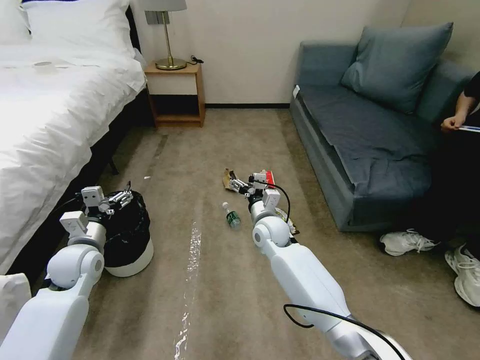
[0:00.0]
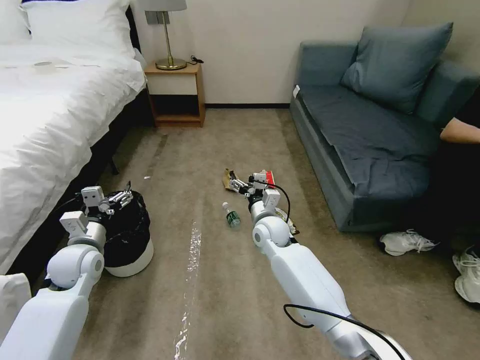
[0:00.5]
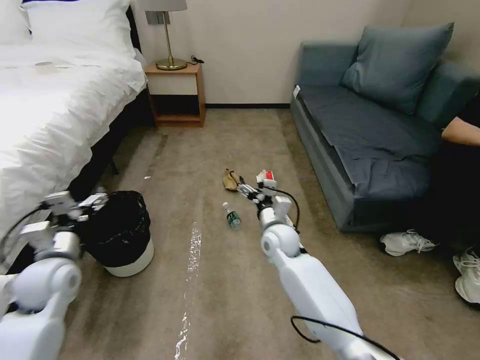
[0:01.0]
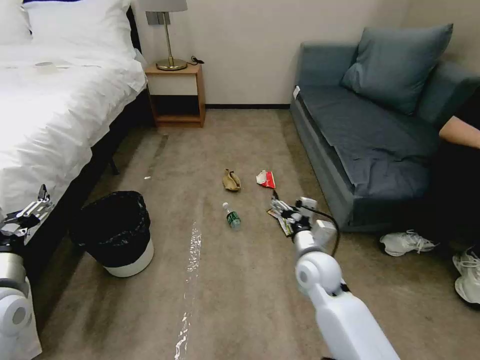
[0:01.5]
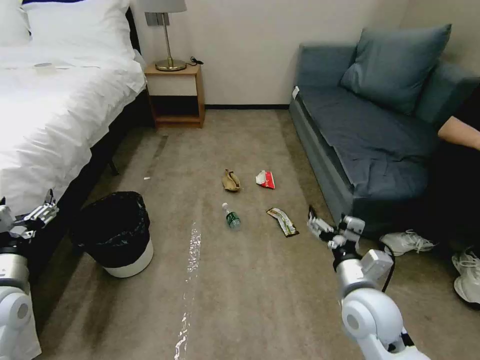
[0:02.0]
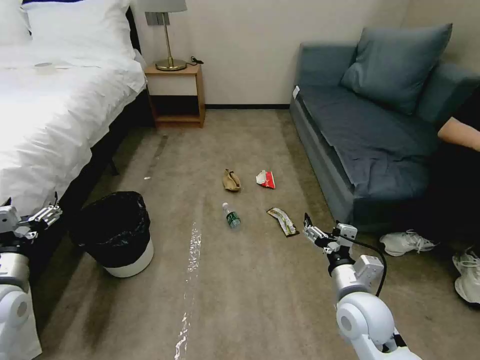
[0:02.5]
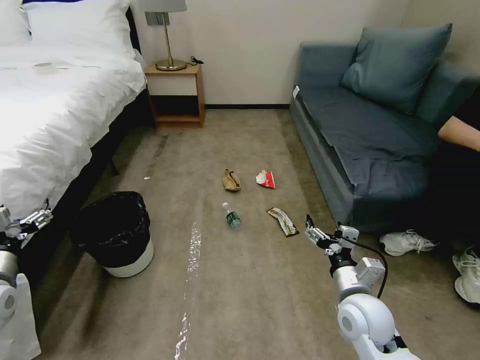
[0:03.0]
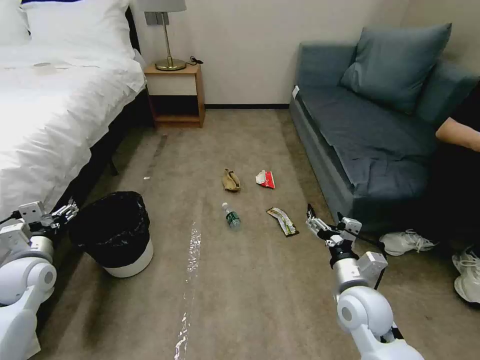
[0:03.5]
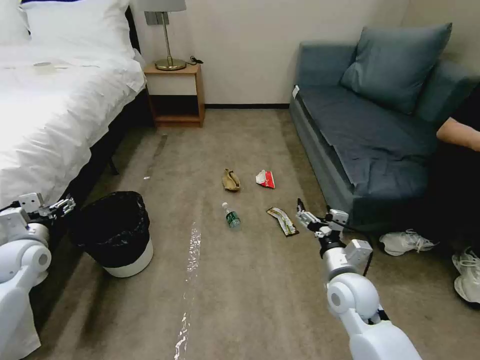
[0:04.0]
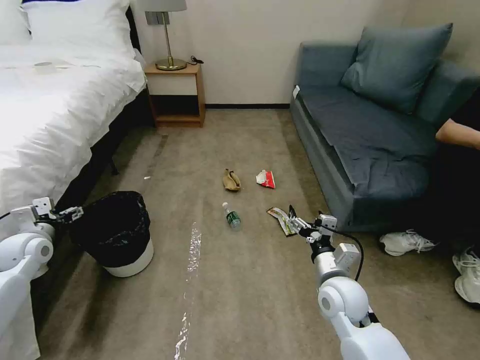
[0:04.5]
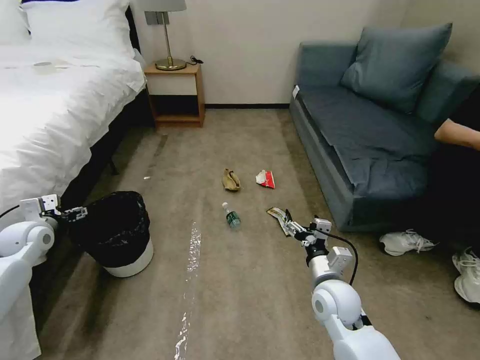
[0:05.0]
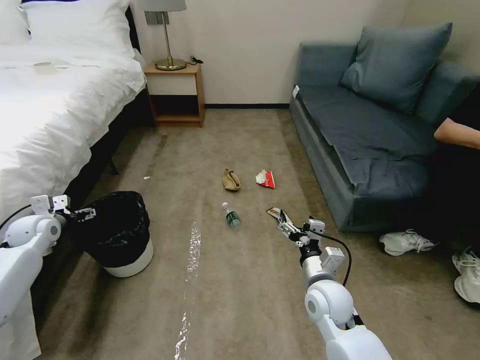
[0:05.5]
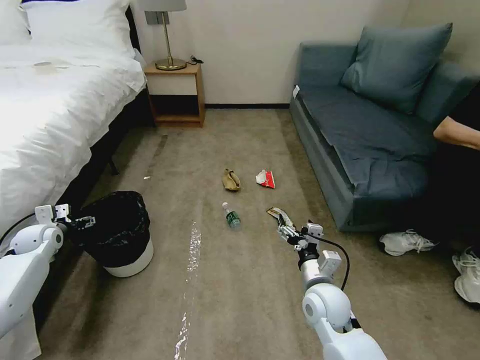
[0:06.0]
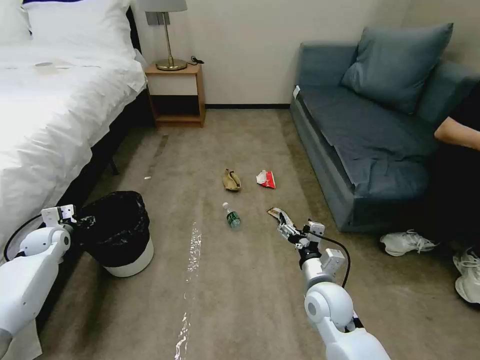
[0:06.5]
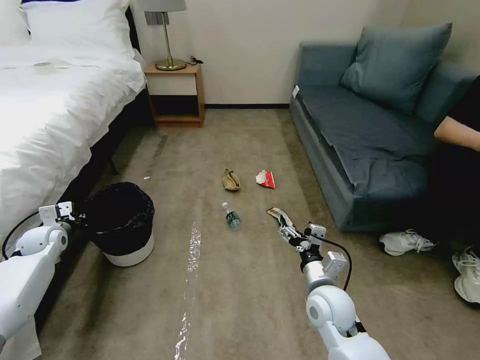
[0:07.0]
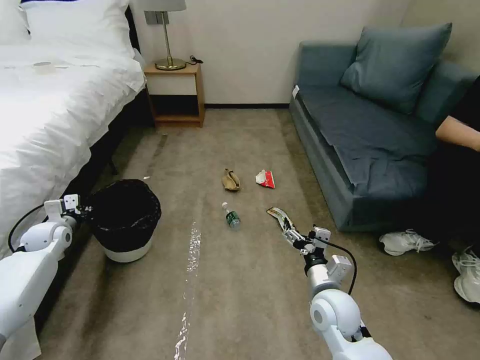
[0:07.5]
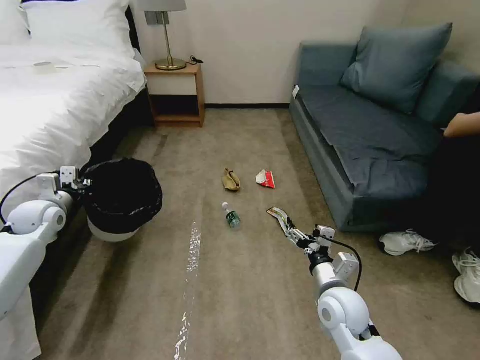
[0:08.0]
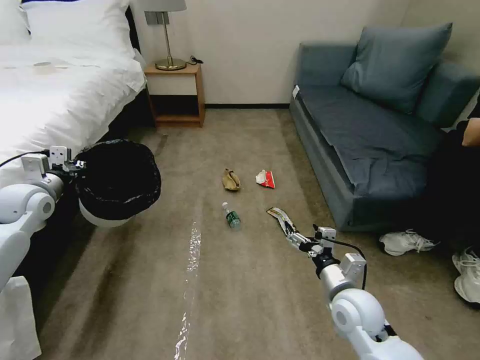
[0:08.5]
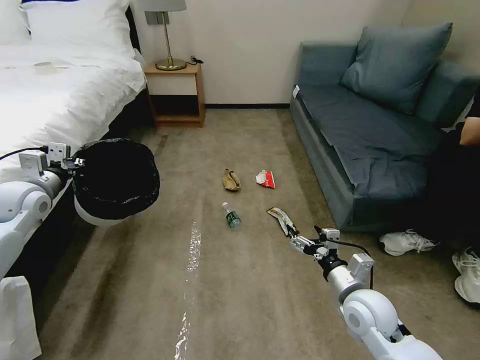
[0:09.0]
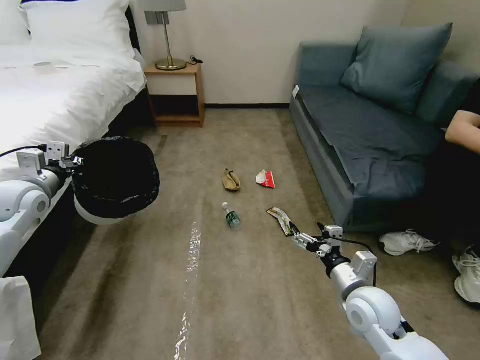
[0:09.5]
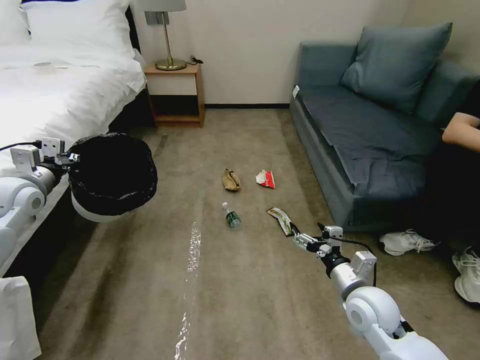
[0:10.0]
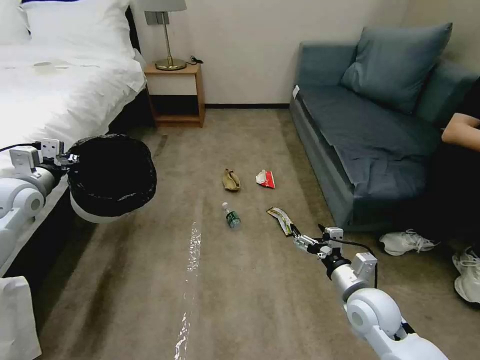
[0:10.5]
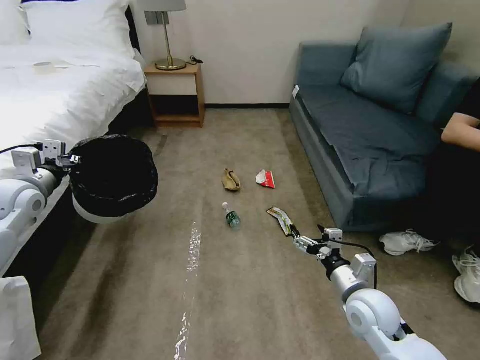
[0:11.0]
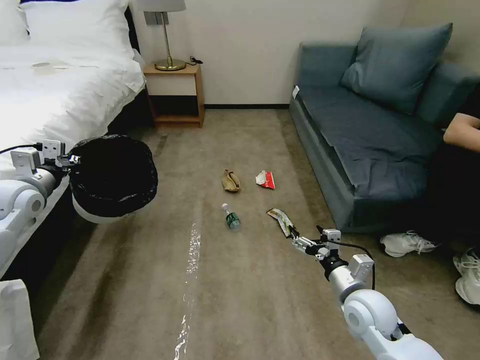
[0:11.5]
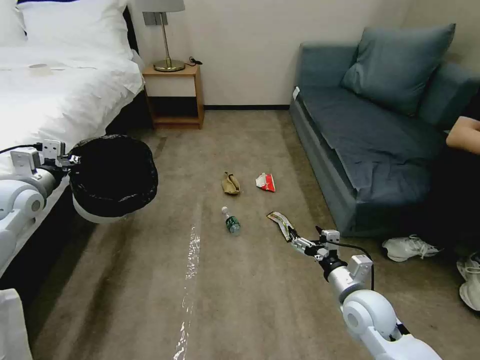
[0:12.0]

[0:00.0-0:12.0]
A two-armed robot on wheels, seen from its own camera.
Task of the whole recording: Pick up the trash bin, then pick up the garbage on the floor and place it into the trash bin.
0:02.0 to 0:04.0: The right gripper ends up roughly 5 cm from where it was. The left gripper is displaced forward and to the left by approximately 15 cm.
0:04.0 to 0:06.0: The right gripper ends up roughly 5 cm from where it was, while the left gripper heads forward, downward and to the left, covering about 10 cm.
0:06.0 to 0:08.0: The left gripper goes about 10 cm upward, and closes its fingers.
0:08.0 to 0:10.0: The left gripper travels upward by roughly 10 cm. The right gripper is displaced to the right by some 5 cm.
0:10.0 to 0:12.0: Neither gripper changes place.

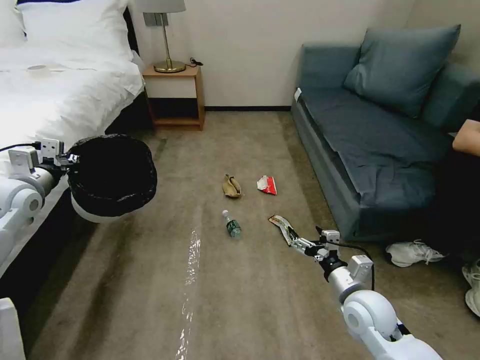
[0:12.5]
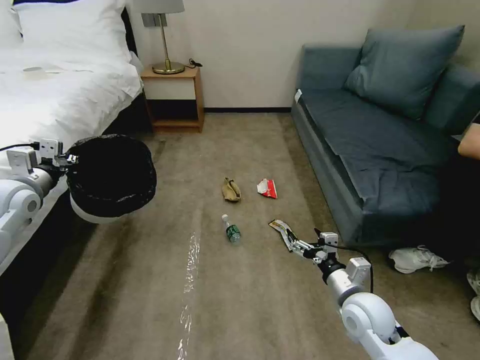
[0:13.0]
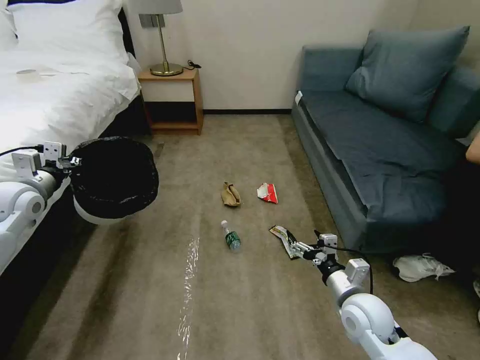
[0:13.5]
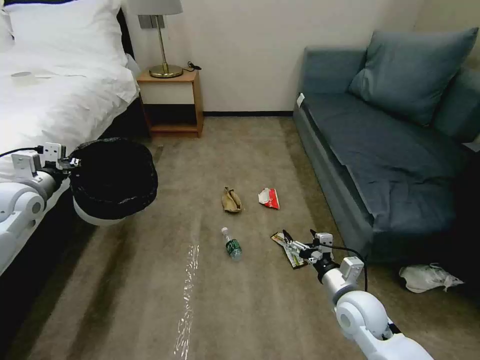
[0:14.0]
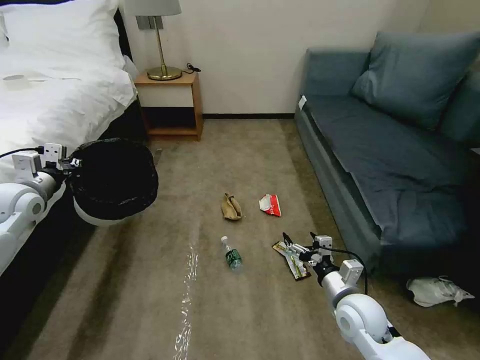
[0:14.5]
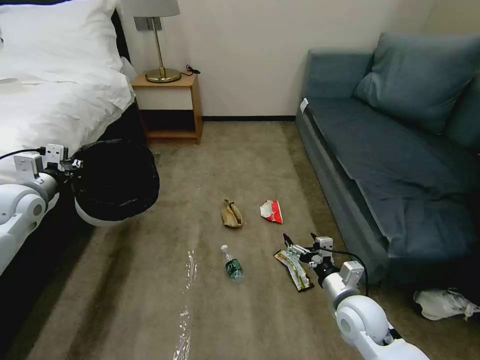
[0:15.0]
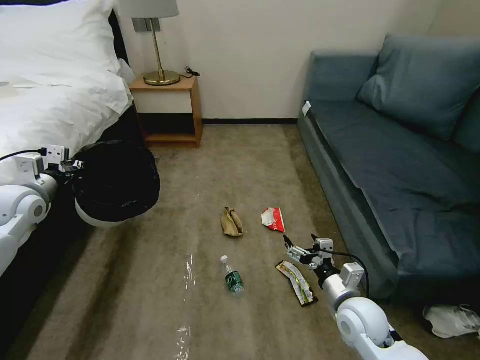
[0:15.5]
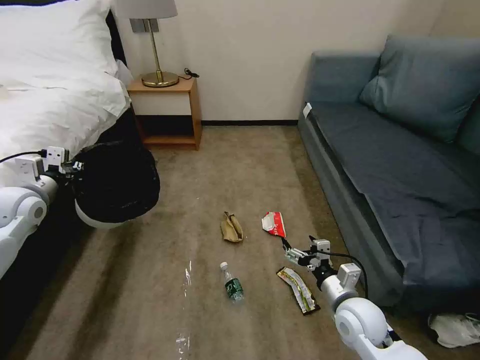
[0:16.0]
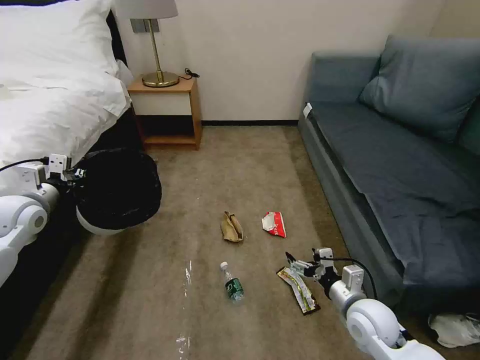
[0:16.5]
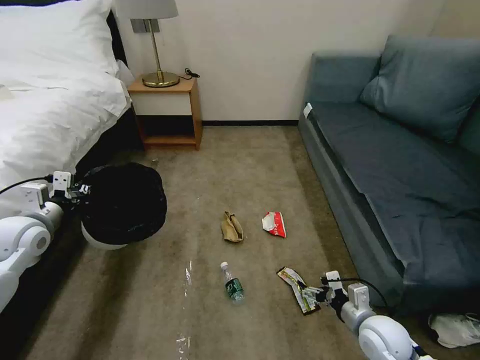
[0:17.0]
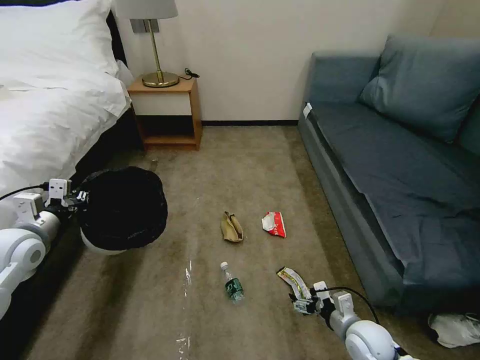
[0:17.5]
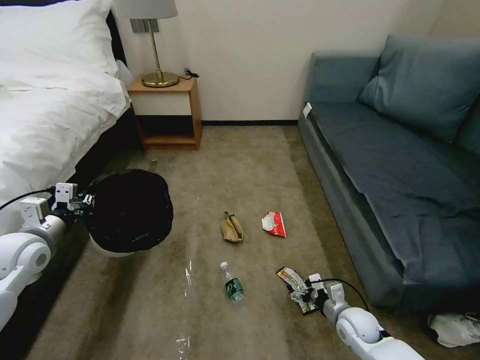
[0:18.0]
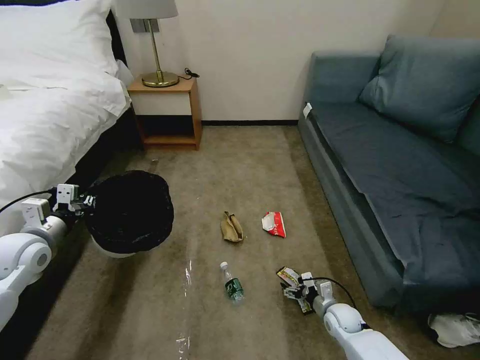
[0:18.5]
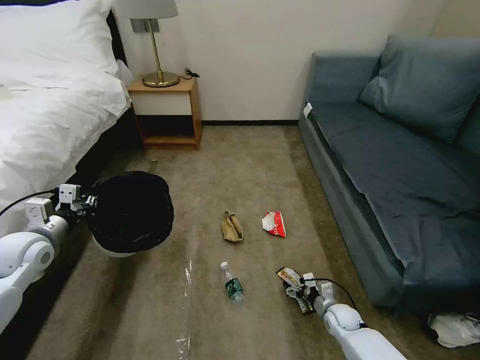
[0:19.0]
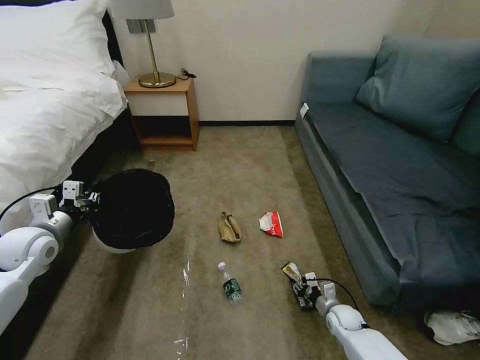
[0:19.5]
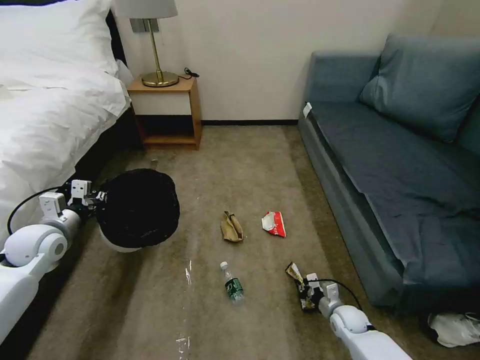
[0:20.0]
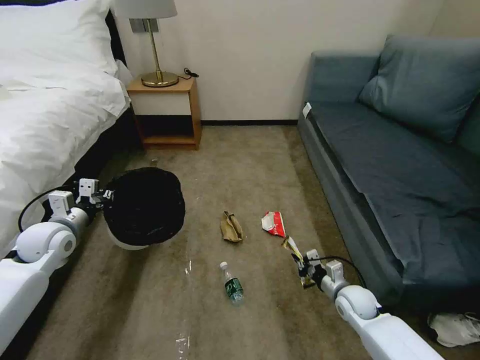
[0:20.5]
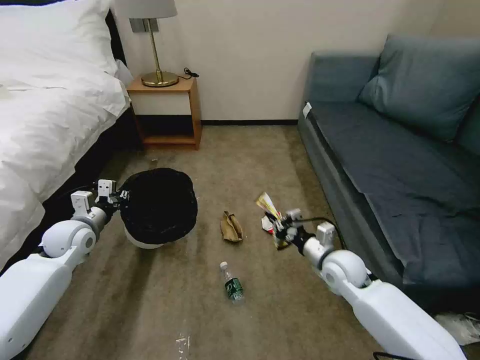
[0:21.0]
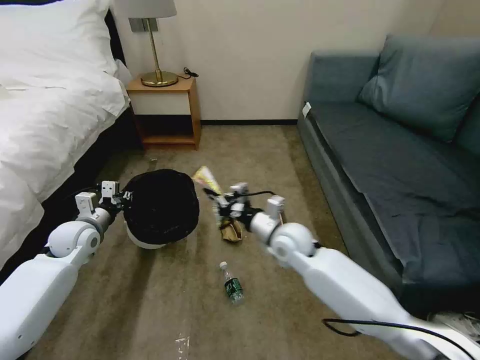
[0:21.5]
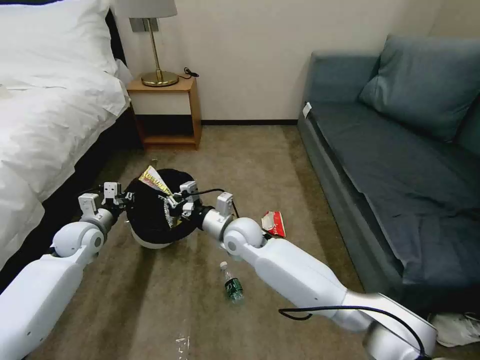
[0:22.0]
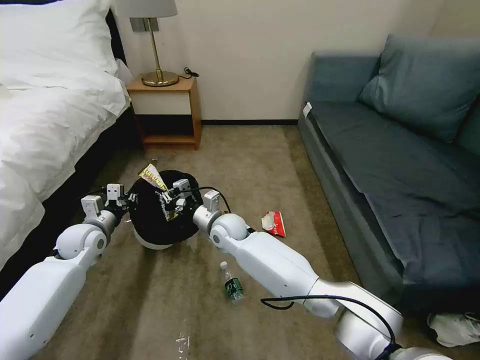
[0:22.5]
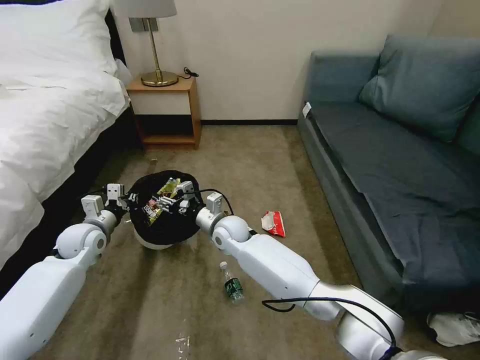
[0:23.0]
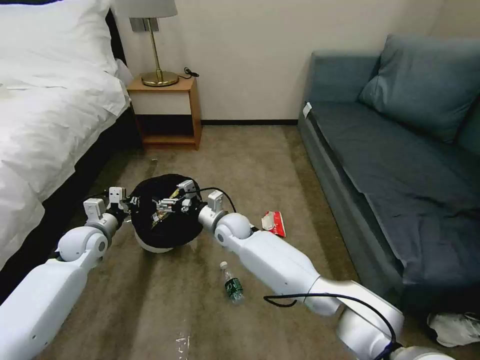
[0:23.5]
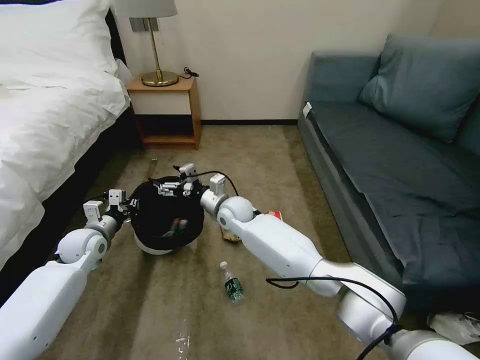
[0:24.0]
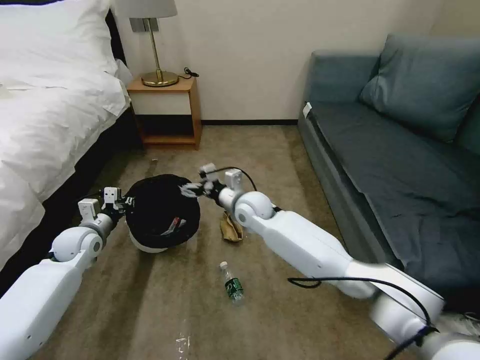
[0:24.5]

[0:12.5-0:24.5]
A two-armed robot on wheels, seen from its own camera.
Task of the whole recording: Pick up the trash bin, then pick up the garbage on the floor and place it into the trash bin.
0:16.5 to 0:18.5: The right gripper moves downward, approximately 20 cm, while the left gripper goes about 5 cm backward.
0:18.5 to 0:20.5: The left gripper ends up some 5 cm from where it was, while the right gripper goes some 10 cm upward, and closes.
0:20.5 to 0:22.5: The right gripper travels to the left and forward by some 35 cm, while the left gripper changes place by about 5 cm.
0:22.5 to 0:24.5: The right gripper moves to the right and upward, some 10 cm, and opens.

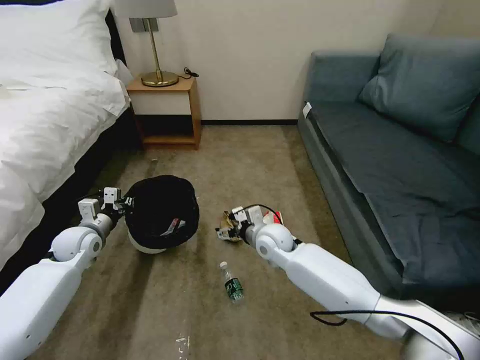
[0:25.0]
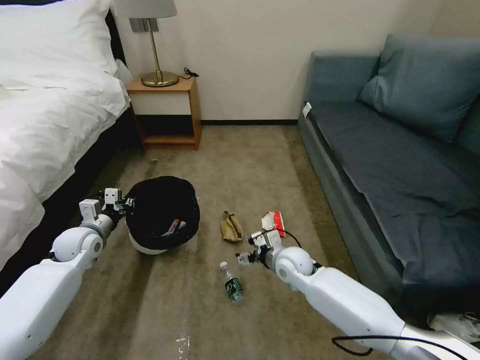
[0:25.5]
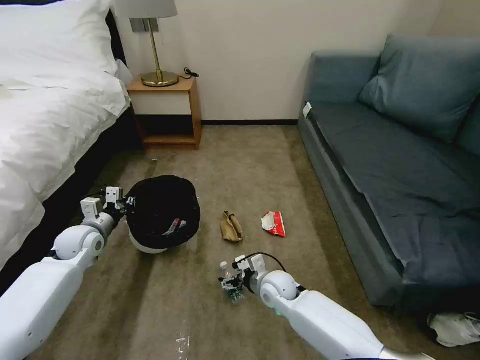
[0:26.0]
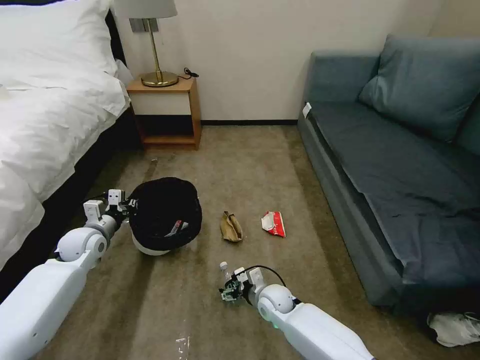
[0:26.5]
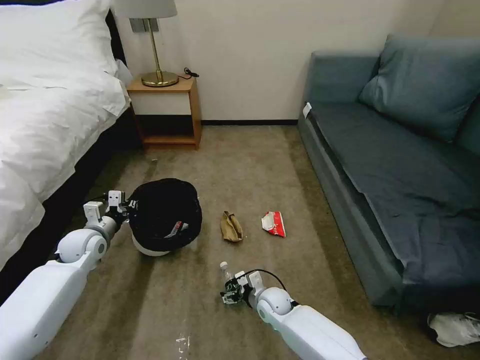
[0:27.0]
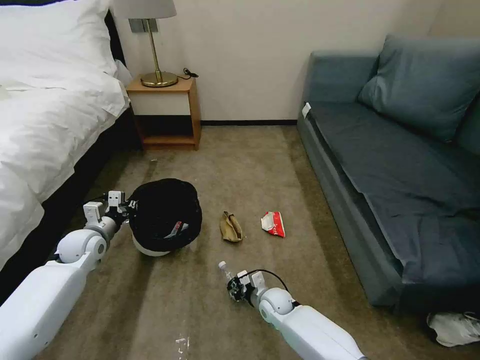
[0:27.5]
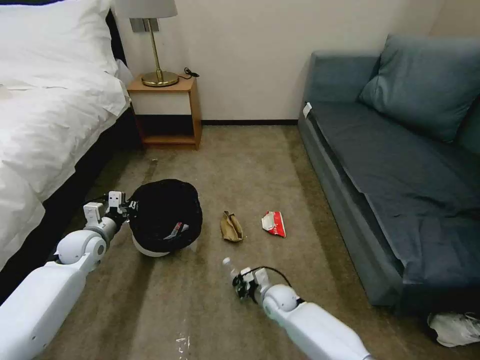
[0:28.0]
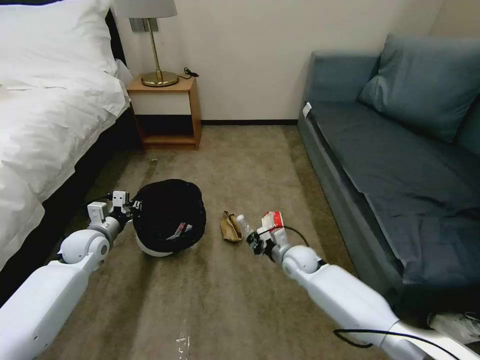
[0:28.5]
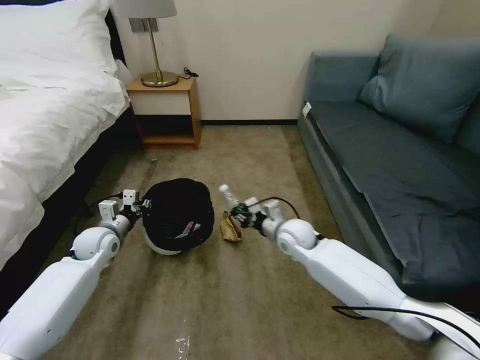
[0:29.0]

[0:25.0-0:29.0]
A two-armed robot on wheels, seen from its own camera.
Task of the whole recording: Pick up the trash bin, then pick up the garbage on the floor and place it into the trash bin.
0:25.0 to 0:27.0: The right gripper travels downward and backward by about 20 cm.
0:27.0 to 0:29.0: The right gripper travels upward and forward by about 20 cm, and closes up.
